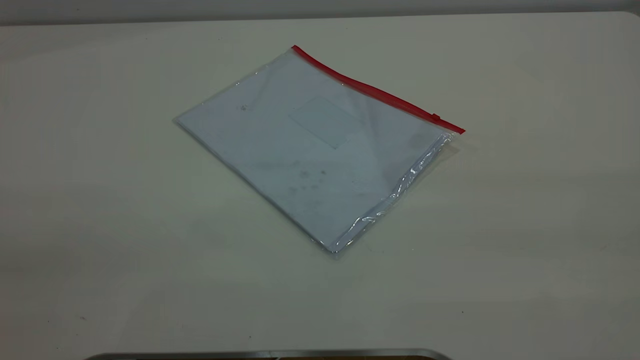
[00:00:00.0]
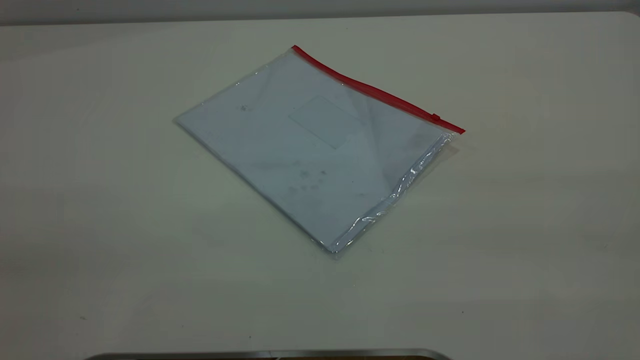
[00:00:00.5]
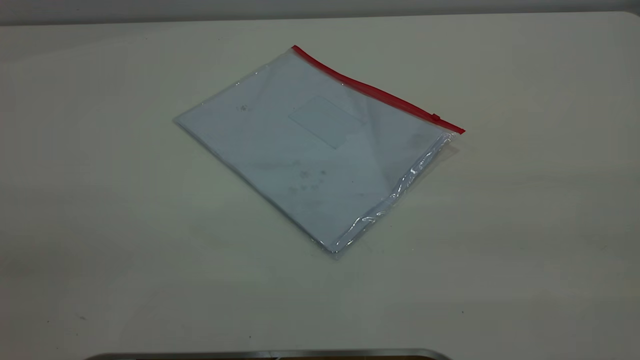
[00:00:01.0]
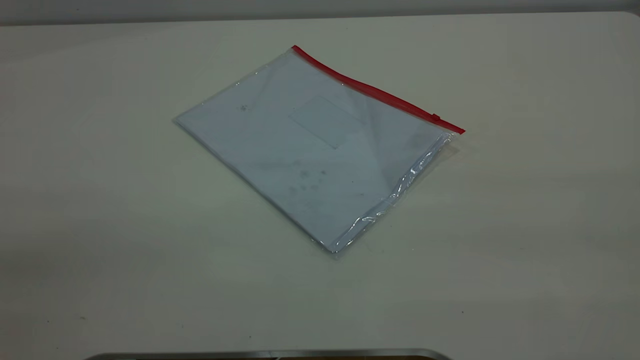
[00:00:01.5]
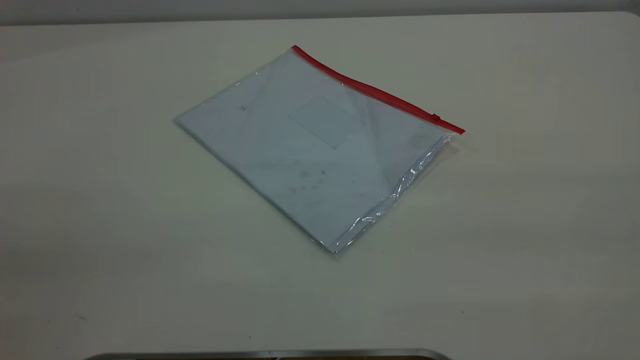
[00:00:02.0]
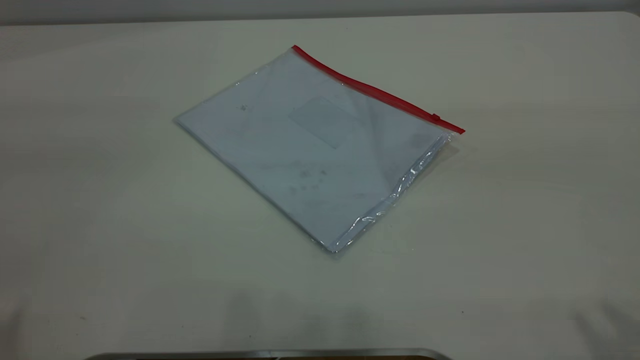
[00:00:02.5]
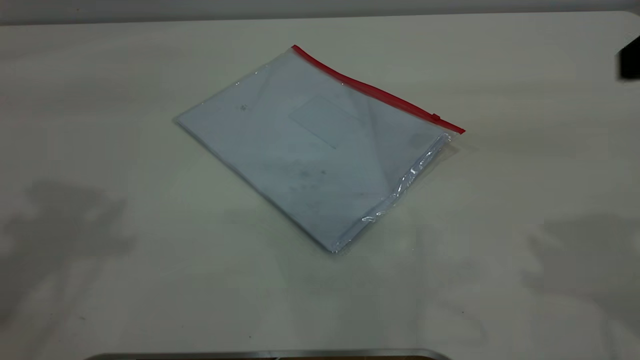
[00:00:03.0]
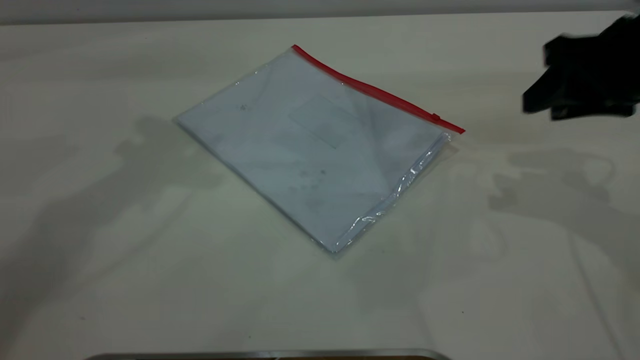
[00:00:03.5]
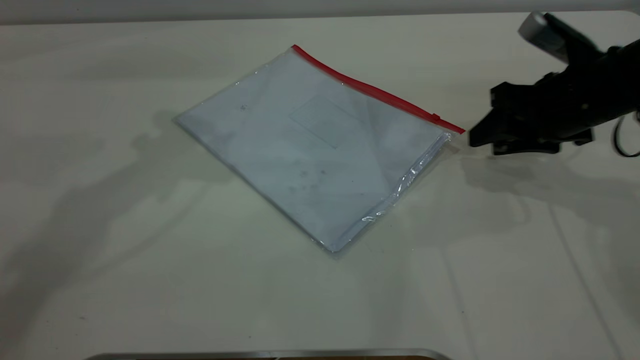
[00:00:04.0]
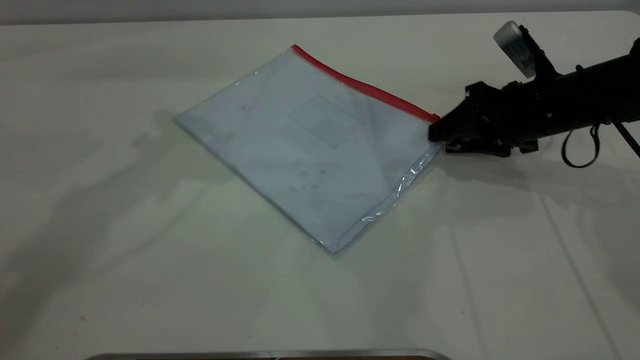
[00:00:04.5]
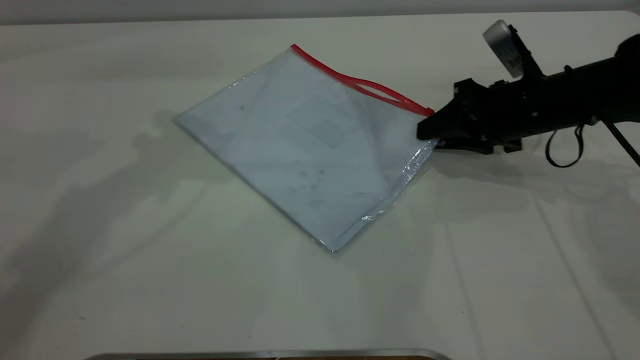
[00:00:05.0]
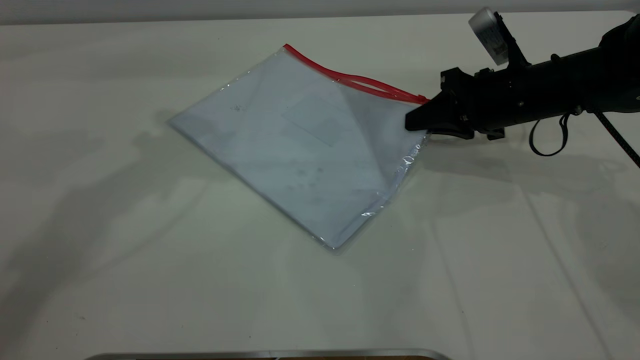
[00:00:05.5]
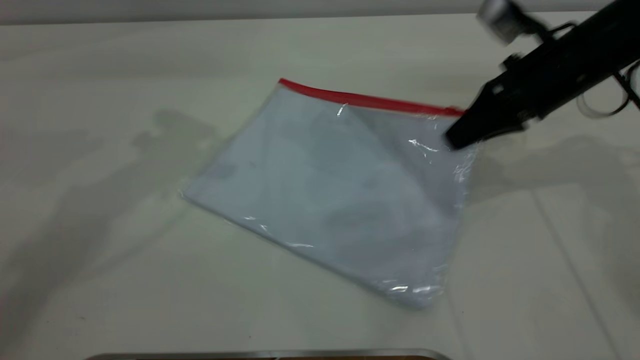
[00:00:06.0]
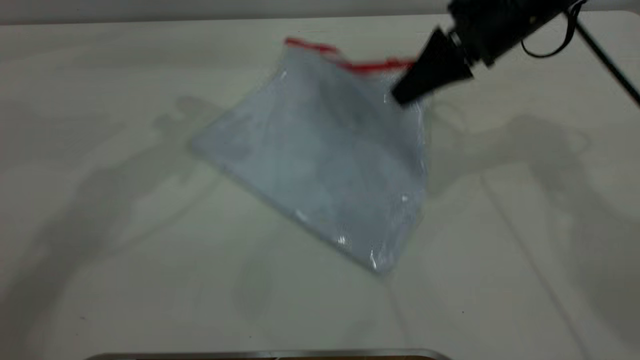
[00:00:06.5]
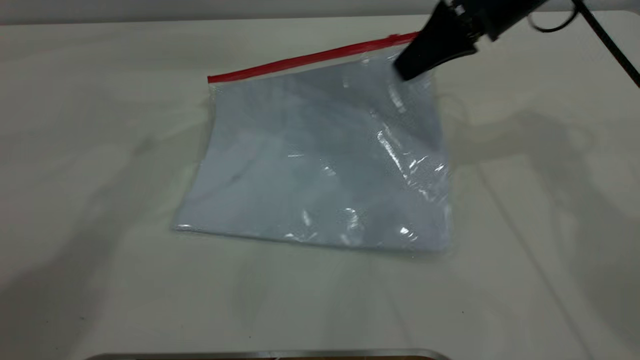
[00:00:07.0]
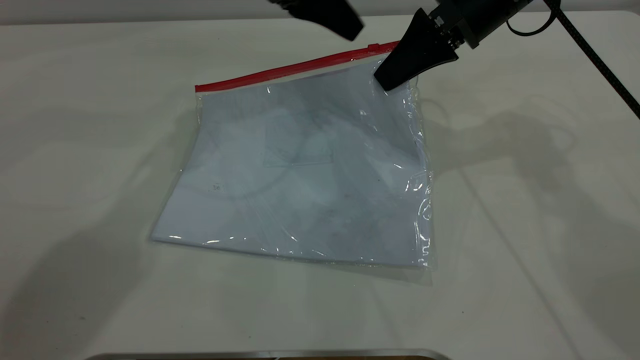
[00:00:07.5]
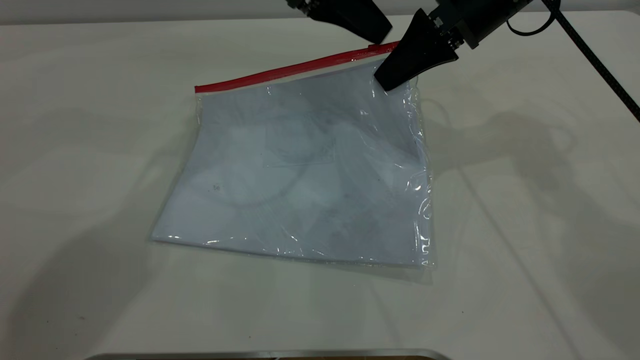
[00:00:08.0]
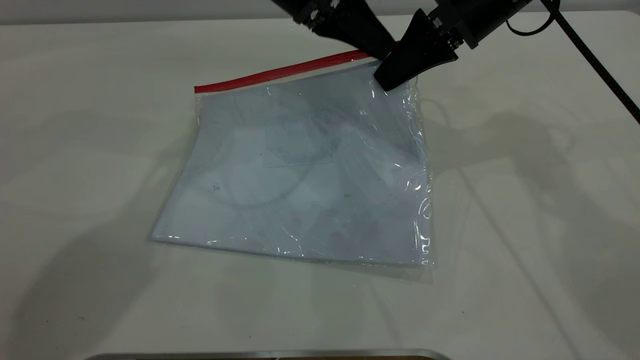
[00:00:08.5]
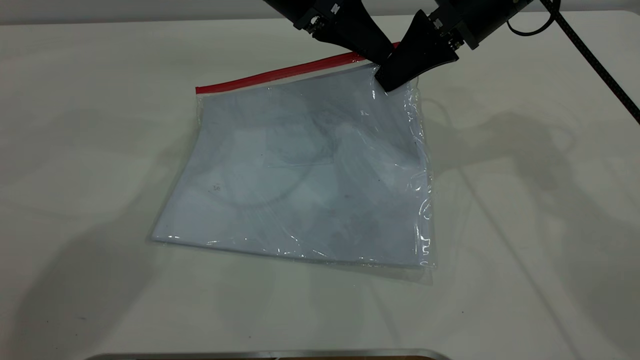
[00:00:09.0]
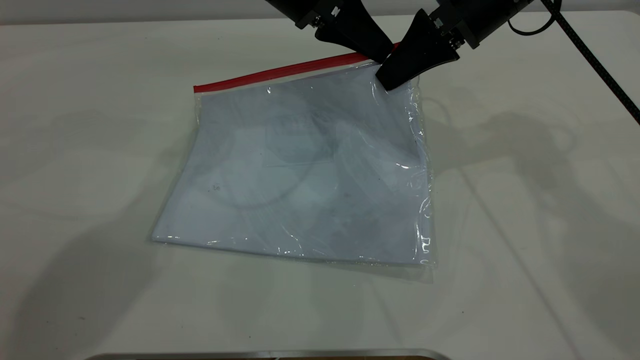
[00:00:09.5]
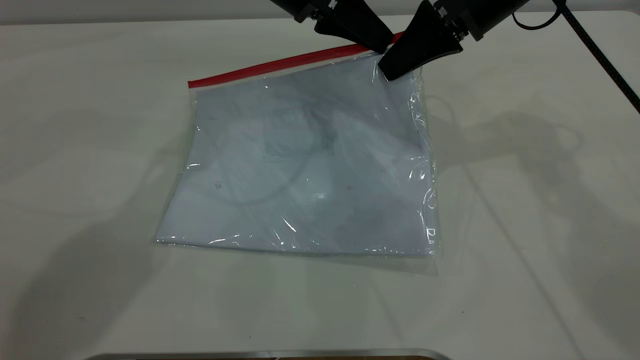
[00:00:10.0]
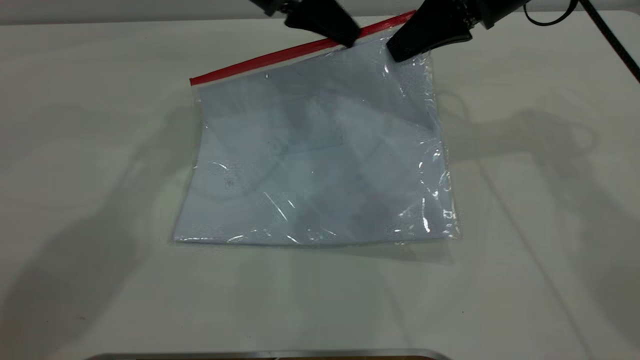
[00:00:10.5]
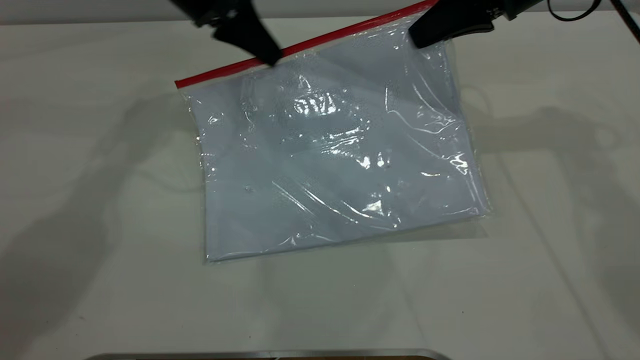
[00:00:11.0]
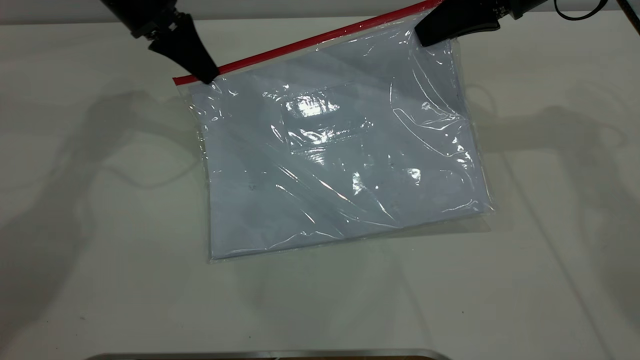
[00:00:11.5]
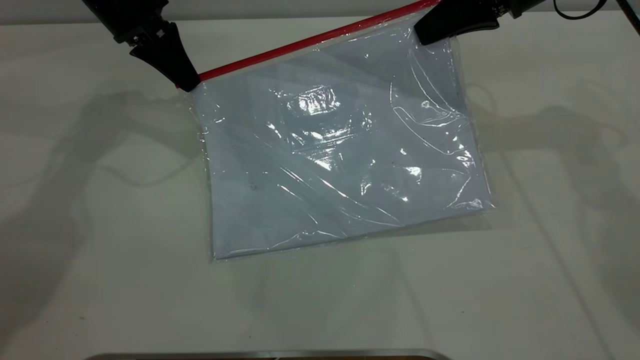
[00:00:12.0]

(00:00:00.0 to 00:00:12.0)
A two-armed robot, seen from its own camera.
Step, 00:00:00.0 - 00:00:05.5: Pick up the transparent plastic bag with the right gripper.
00:00:02.0 - 00:00:04.0: The right gripper travels forward and downward by roughly 50 cm, and opens its fingers.
00:00:04.0 - 00:00:06.0: The right gripper closes its fingers.
00:00:06.0 - 00:00:08.0: The right gripper moves to the left and upward, approximately 10 cm. Meanwhile the left gripper moves to the right, downward and forward, some 20 cm.
00:00:08.0 - 00:00:10.0: The left gripper closes up.
00:00:10.0 - 00:00:12.0: The left gripper travels to the left by some 15 cm. The right gripper ends up about 5 cm from where it was.

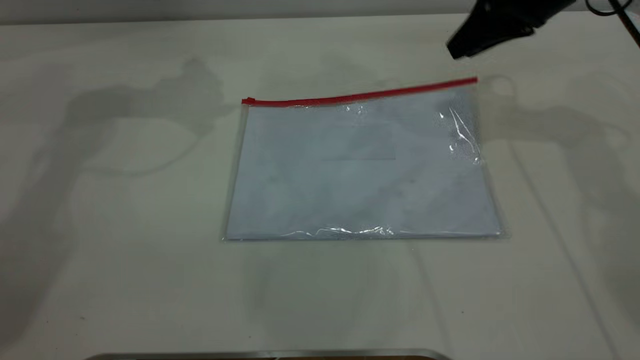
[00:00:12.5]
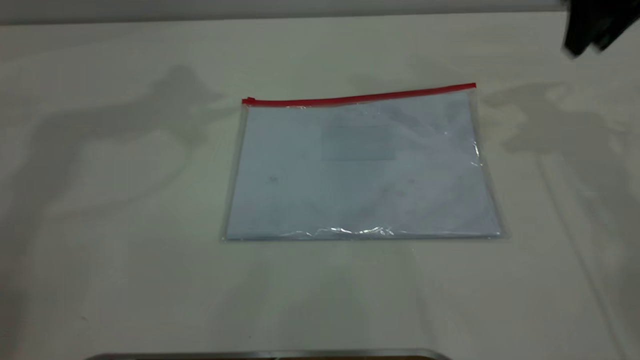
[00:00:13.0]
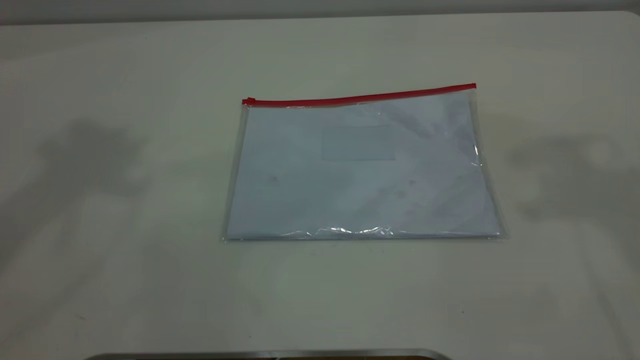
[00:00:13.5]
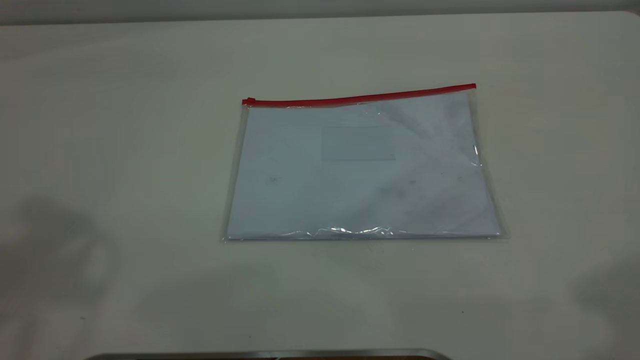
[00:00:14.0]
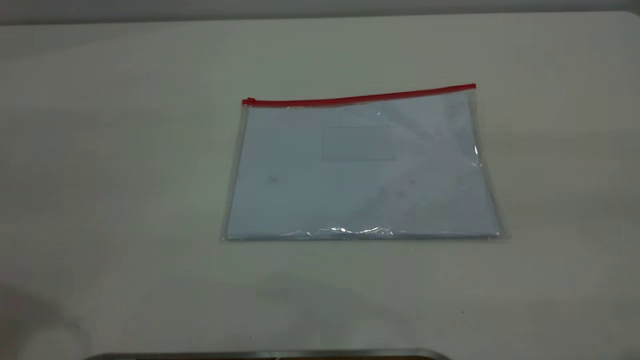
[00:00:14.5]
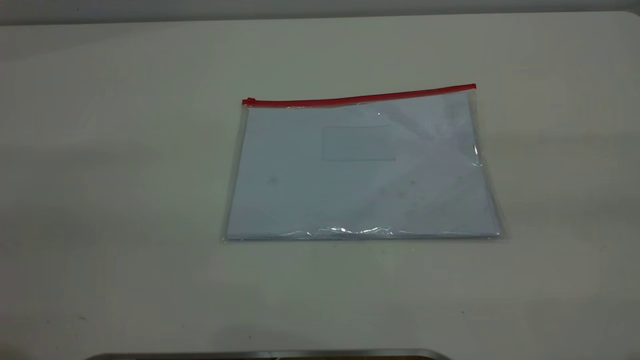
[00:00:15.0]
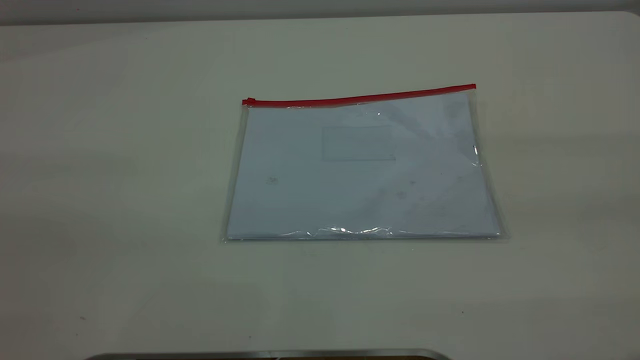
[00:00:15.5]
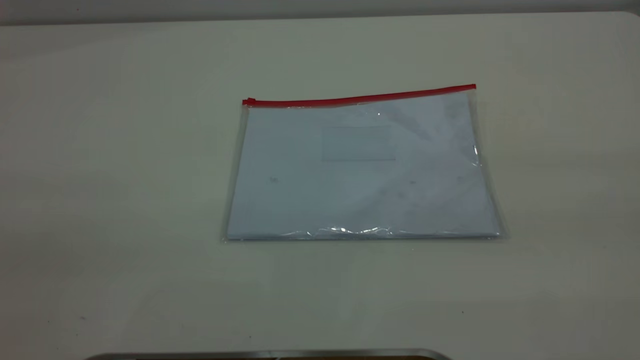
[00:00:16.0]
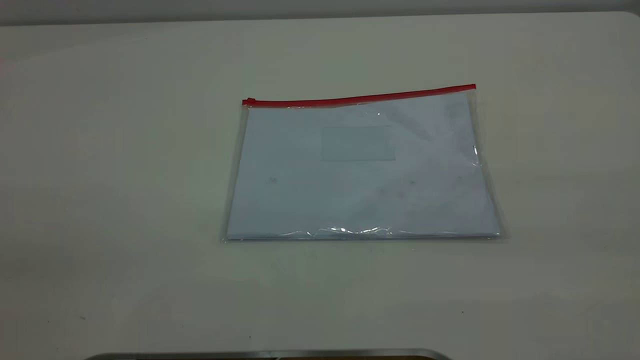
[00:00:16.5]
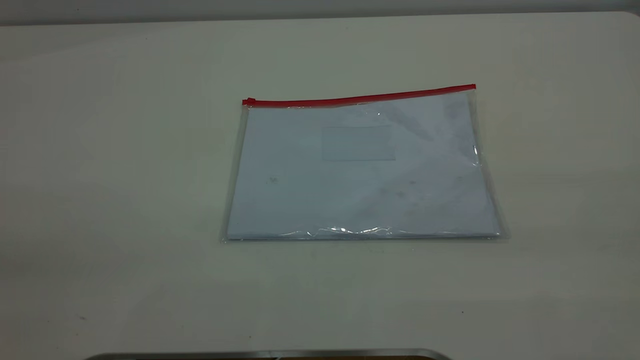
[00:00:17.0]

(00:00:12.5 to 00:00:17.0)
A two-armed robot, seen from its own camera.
00:00:12.5 - 00:00:14.5: The right gripper moves backward and upward, approximately 40 cm.
